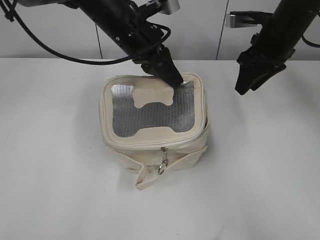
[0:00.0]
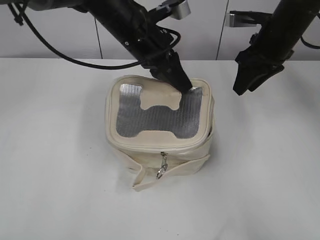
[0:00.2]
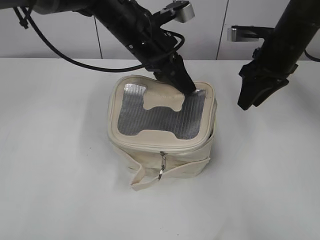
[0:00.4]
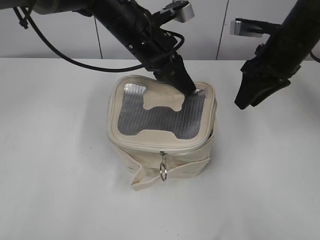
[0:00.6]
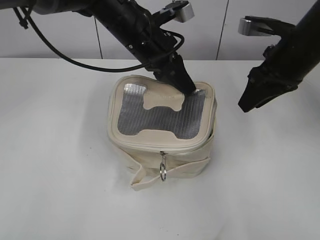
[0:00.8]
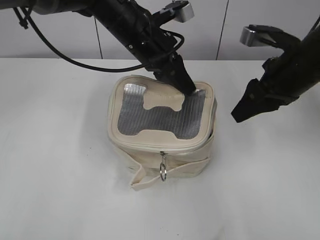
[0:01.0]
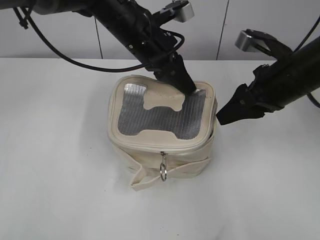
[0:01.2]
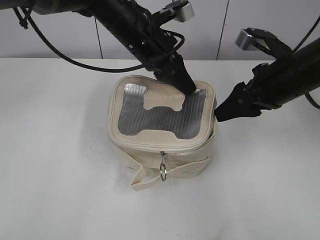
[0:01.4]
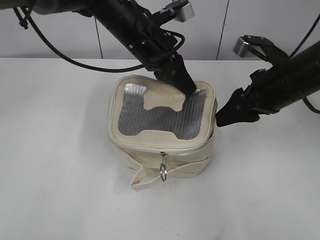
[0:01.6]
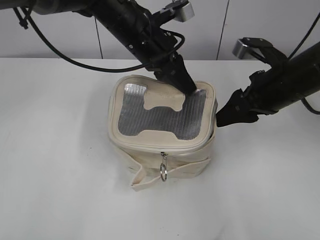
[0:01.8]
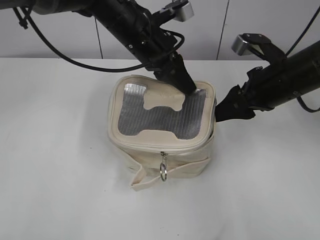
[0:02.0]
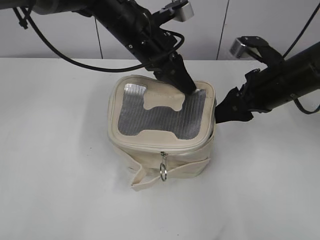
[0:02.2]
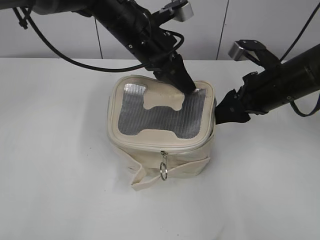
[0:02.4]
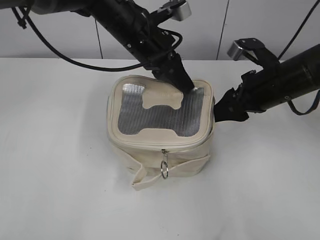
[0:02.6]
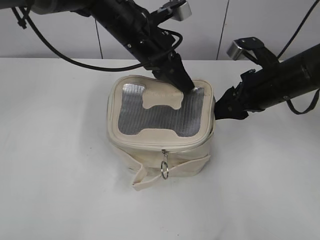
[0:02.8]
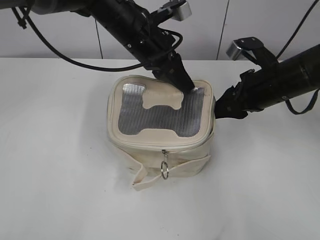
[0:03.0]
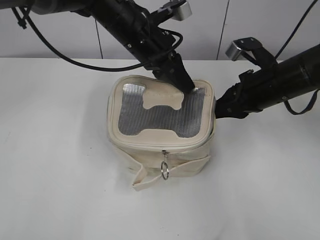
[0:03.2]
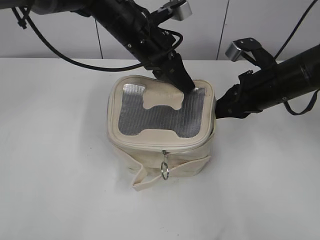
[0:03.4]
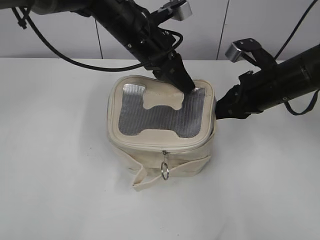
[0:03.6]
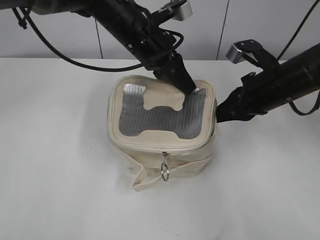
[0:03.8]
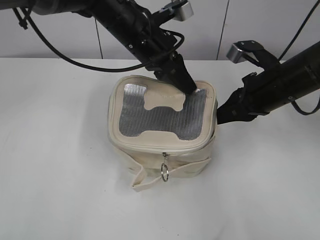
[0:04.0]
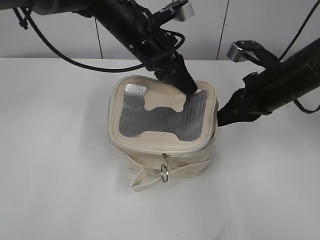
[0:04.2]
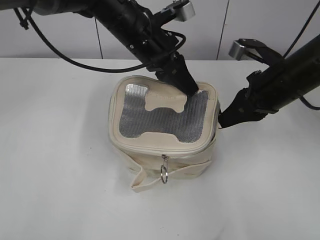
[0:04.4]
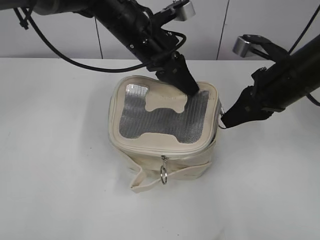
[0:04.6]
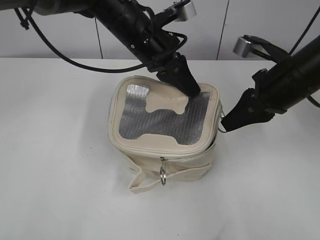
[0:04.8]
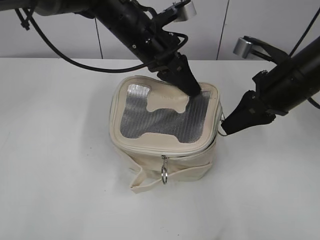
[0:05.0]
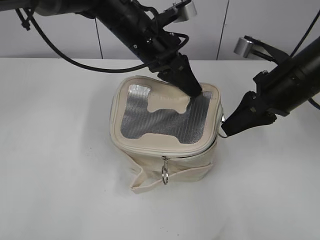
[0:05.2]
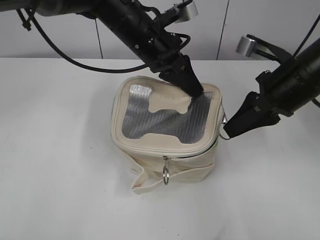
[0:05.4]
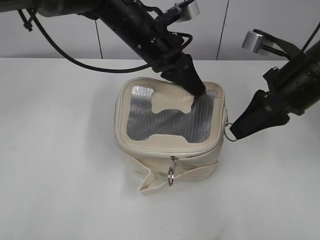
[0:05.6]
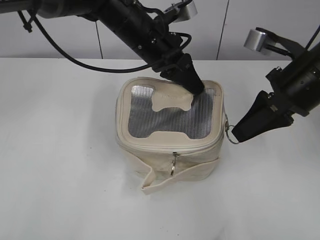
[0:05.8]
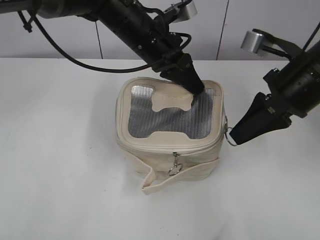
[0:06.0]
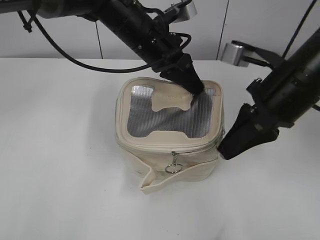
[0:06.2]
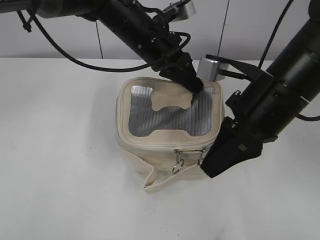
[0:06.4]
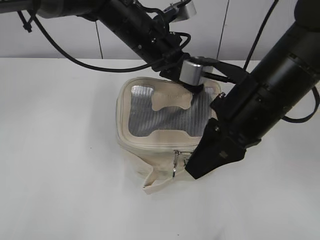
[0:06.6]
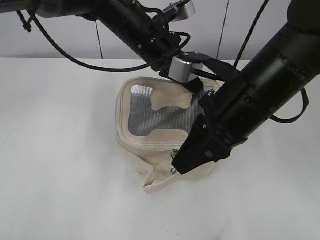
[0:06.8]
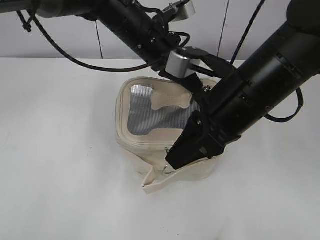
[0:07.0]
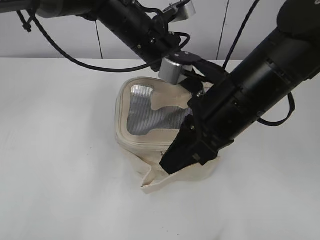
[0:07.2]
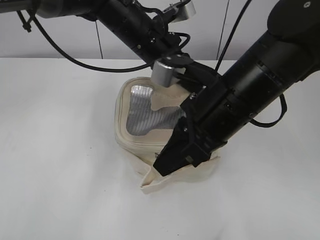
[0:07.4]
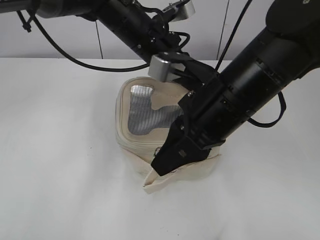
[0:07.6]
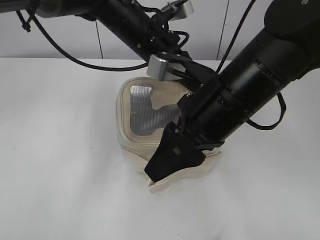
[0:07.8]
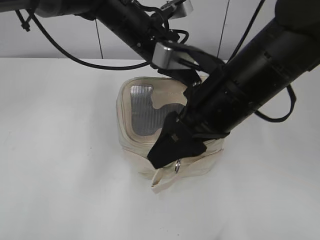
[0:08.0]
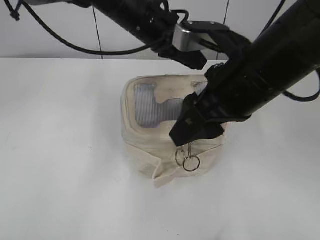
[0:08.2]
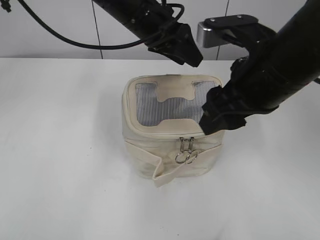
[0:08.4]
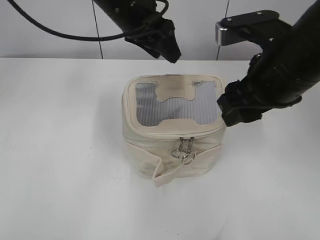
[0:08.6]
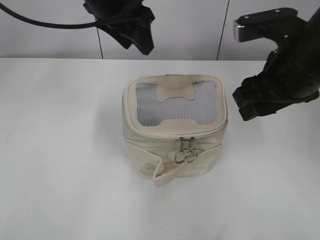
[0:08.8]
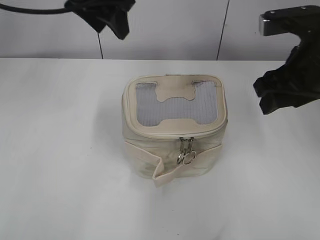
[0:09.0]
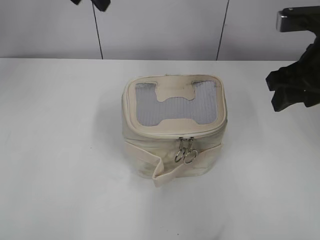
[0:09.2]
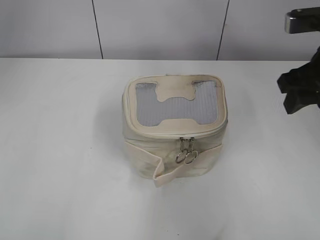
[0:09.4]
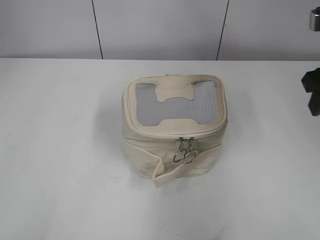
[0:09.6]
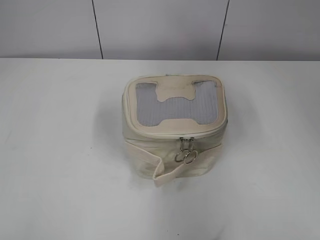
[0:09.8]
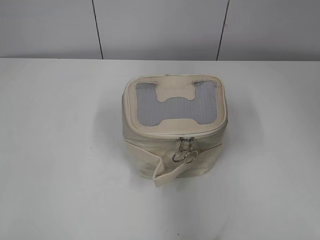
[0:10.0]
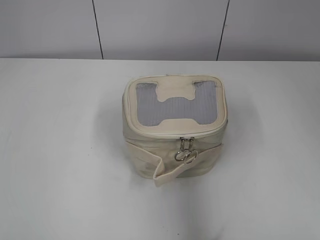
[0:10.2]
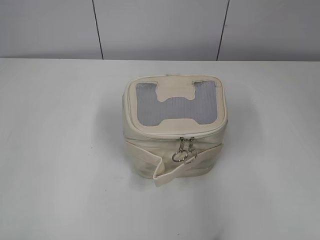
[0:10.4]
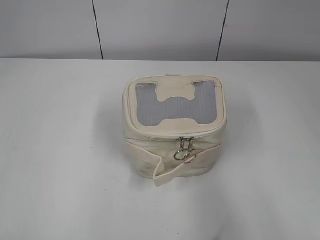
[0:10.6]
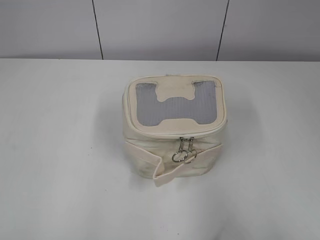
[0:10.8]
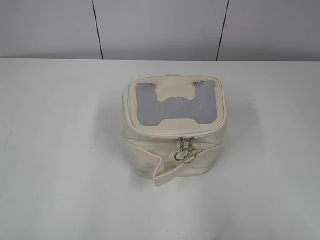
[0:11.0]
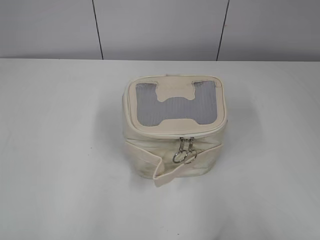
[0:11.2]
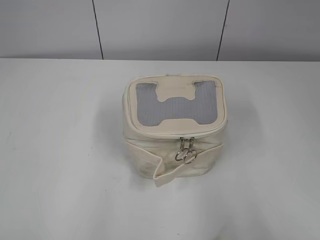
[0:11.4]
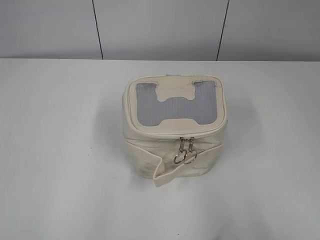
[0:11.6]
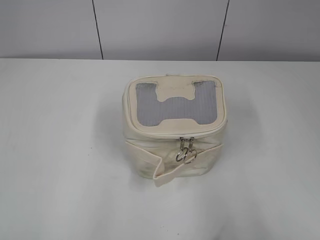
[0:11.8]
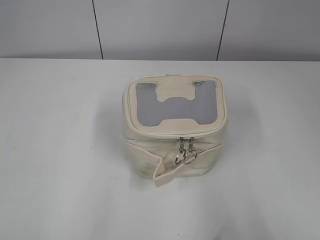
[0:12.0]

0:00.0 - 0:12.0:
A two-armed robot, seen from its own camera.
0:00.0 - 0:01.6: The right gripper moves backward, roughly 10 cm.
0:01.6 - 0:03.0: The grippers make only small movements.
0:03.0 - 0:04.4: The right gripper closes its fingers.
0:04.4 - 0:06.0: The right gripper shifts by approximately 5 cm.
0:06.0 - 0:07.6: The right gripper heads to the left, covering approximately 10 cm.
0:07.6 - 0:09.0: The right gripper is displaced to the right by roughly 10 cm, and opens, while the left gripper shifts some 15 cm upward and to the left, and opens up.
0:09.0 - 0:10.4: The left gripper travels backward and to the left by approximately 40 cm; the right gripper moves backward and to the right, about 20 cm.
0:10.4 - 0:12.0: The right gripper travels backward and downward by some 10 cm, while the left gripper goes roughly 5 cm downward.

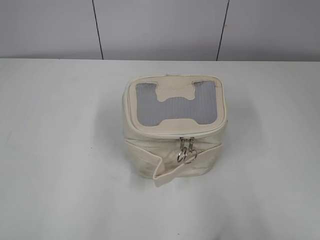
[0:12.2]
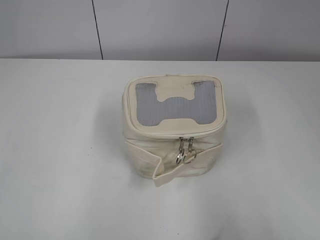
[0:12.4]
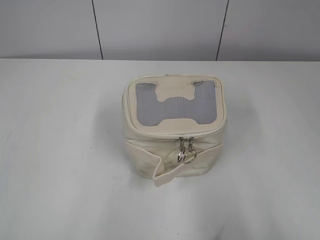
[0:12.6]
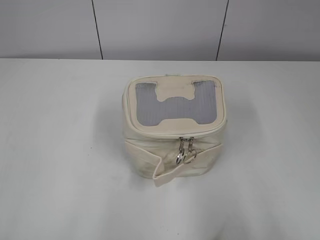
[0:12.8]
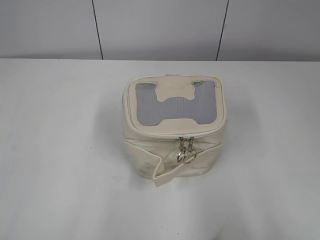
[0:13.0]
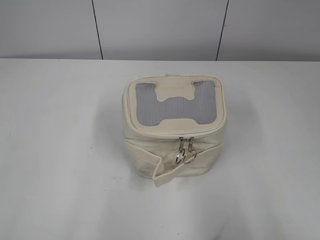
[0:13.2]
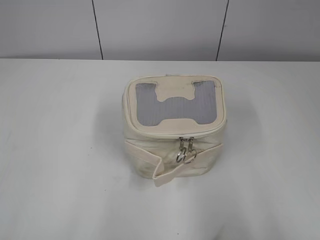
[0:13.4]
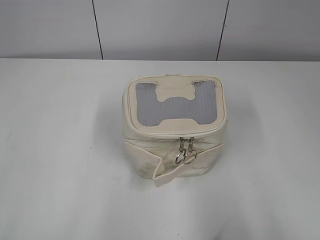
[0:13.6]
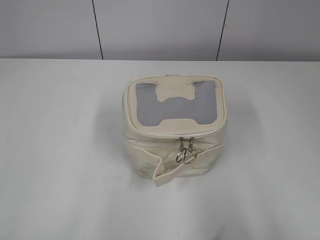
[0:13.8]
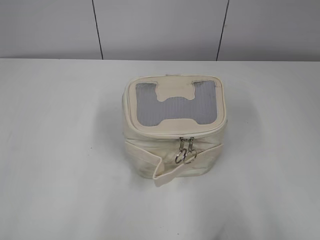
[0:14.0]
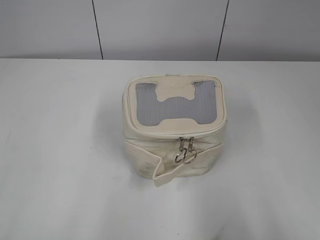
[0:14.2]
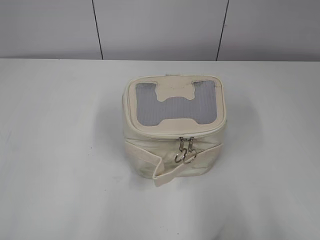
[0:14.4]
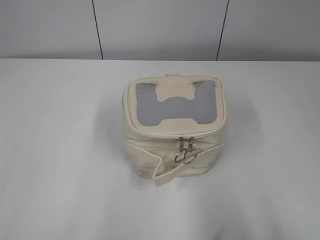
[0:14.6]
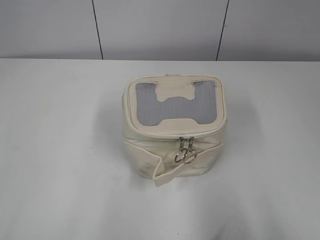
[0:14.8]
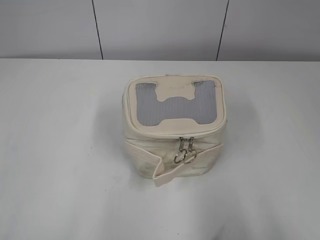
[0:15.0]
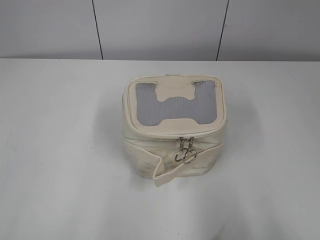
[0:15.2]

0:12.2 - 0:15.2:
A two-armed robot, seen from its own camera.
0:13.8 - 0:15.2: The two grippers keep their place.

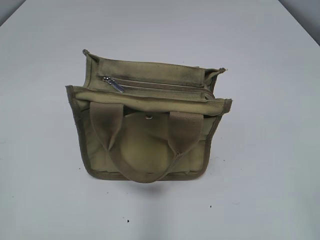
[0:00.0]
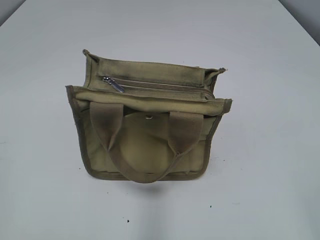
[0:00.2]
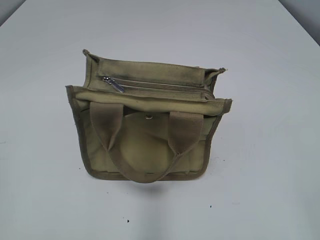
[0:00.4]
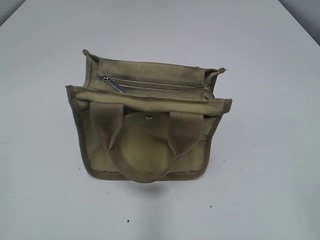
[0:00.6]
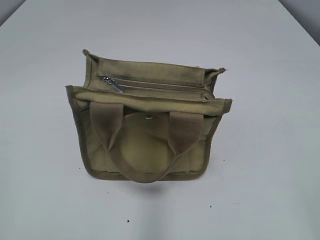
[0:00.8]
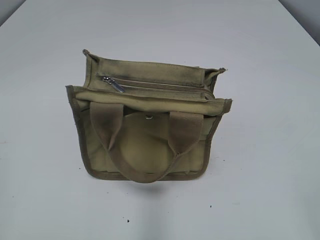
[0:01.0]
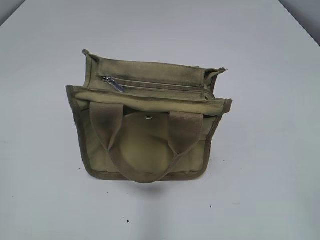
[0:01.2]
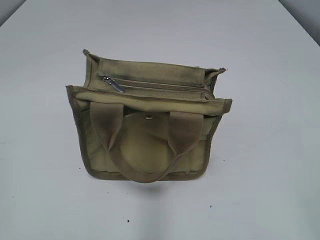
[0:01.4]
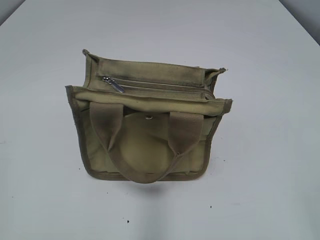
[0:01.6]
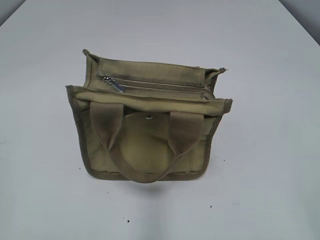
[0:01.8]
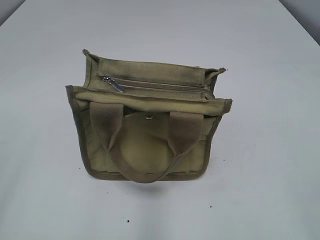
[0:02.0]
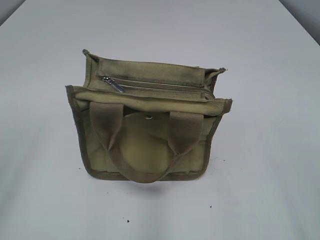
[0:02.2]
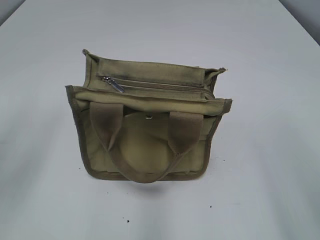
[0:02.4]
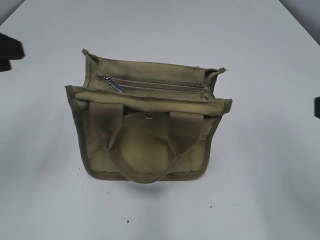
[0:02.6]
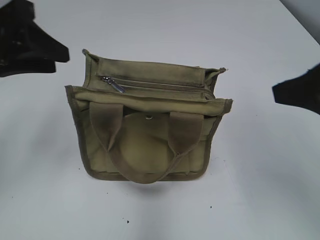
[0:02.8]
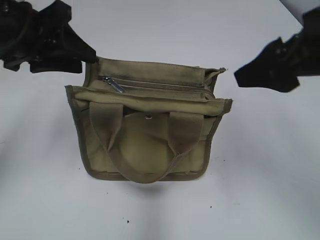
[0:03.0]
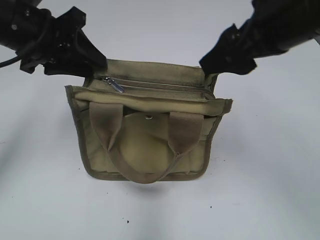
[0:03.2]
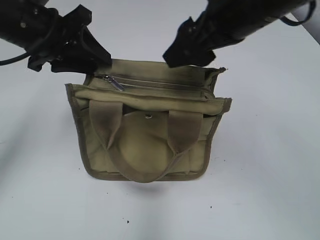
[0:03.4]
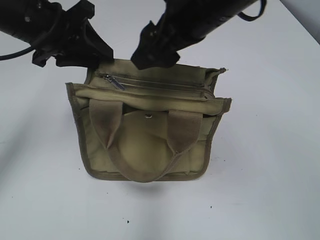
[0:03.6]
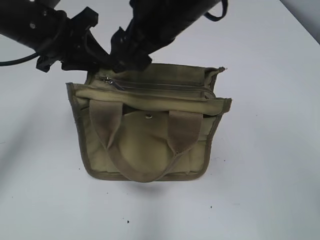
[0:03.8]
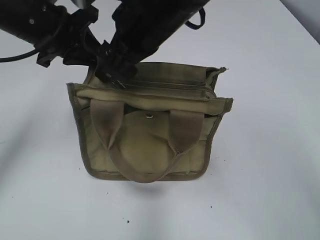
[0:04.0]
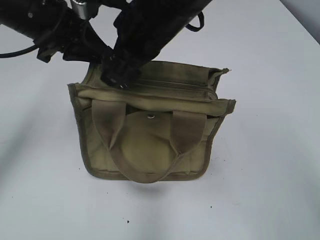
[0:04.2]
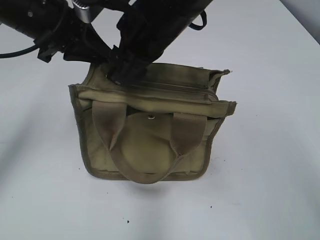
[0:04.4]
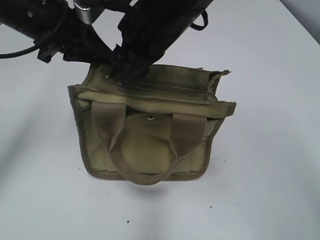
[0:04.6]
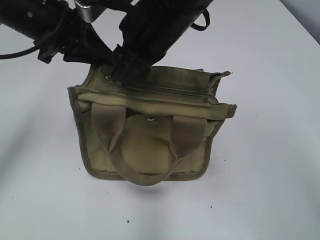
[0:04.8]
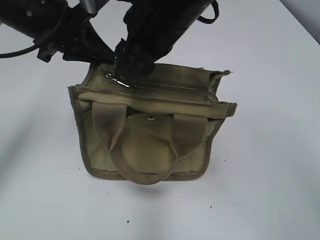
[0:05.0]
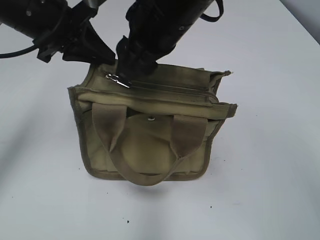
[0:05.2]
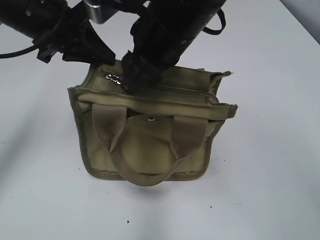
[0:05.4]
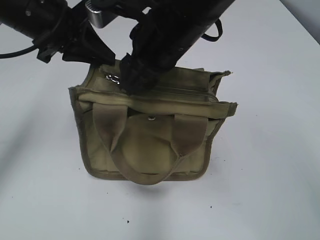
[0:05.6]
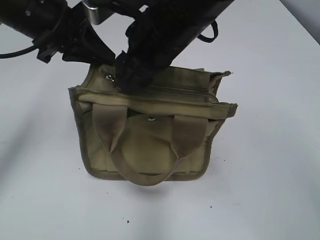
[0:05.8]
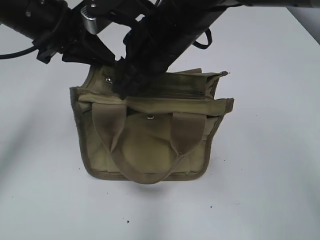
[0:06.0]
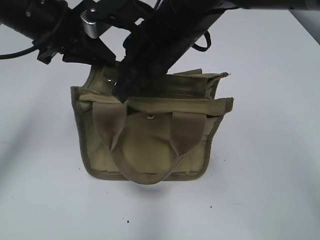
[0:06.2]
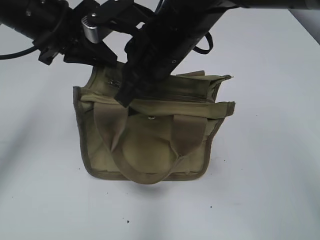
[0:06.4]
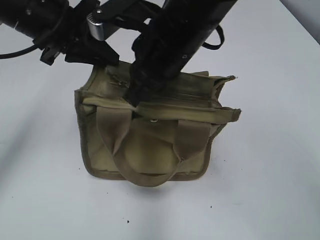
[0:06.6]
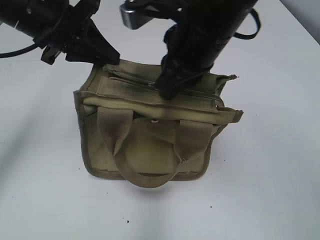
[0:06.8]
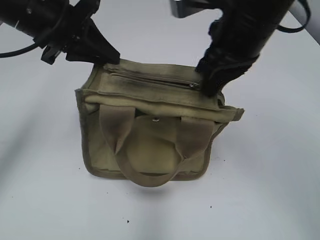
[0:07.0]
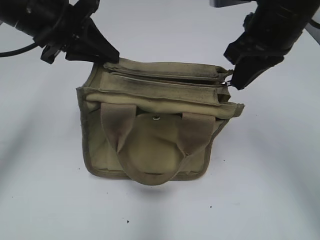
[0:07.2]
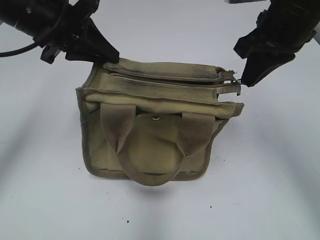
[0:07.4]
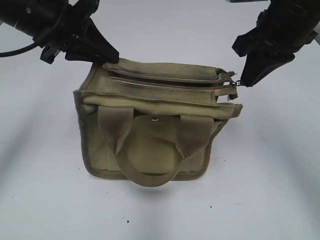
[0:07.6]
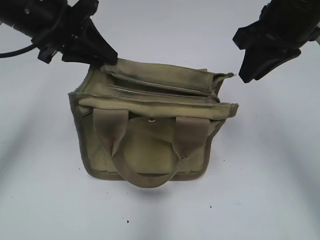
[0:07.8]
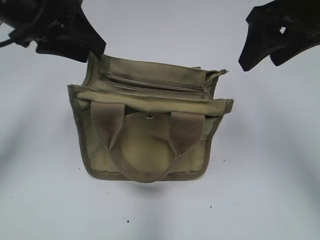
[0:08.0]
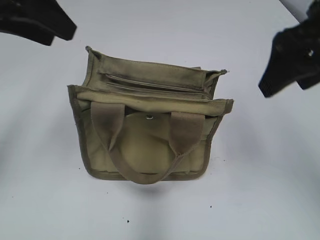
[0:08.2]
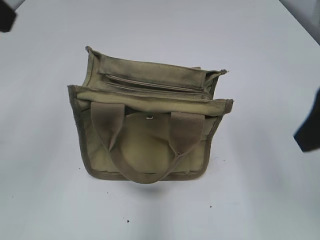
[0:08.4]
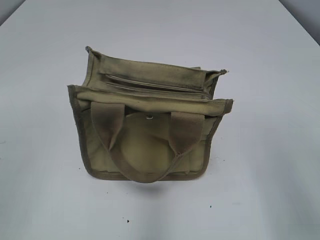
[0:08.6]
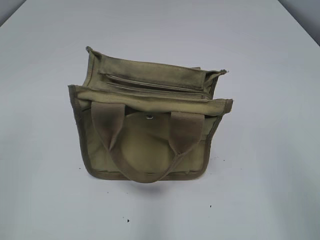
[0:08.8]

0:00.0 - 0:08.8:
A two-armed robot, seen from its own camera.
Step, 0:00.0 - 0:07.6: Pull open the zipper with your right hand.
Step, 0:07.8 - 0:08.0: Hold the bag with your left hand.
0:01.4 - 0:03.0: The right gripper is displaced forward by approximately 25 cm, while the left gripper is displaced forward and to the right by about 30 cm.
0:03.0 - 0:04.4: The right gripper shifts some 20 cm to the left and forward. The left gripper heads forward, covering about 5 cm, and closes its fingers.
0:04.4 - 0:05.8: The grippers make only small movements.
0:05.8 - 0:07.4: The right gripper travels to the right by approximately 15 cm, and closes its fingers.
0:07.4 - 0:08.8: The right gripper heads backward, covering about 25 cm, and opens; the left gripper is displaced backward and to the left by some 30 cm, and opens.
